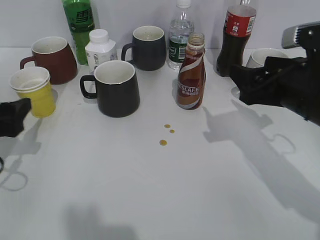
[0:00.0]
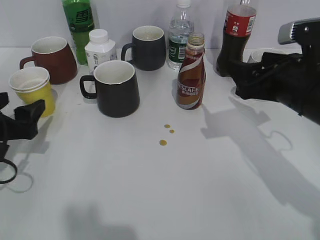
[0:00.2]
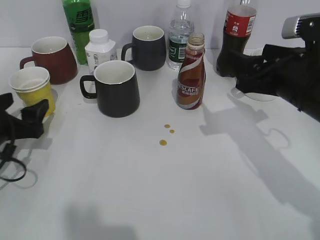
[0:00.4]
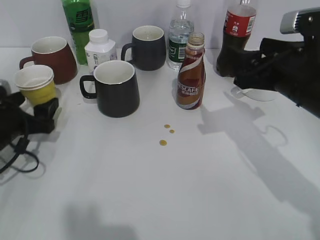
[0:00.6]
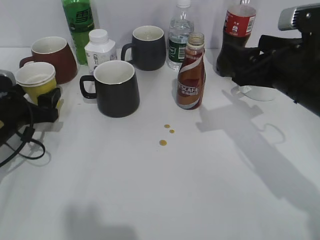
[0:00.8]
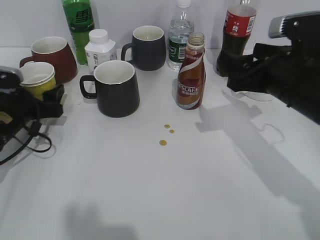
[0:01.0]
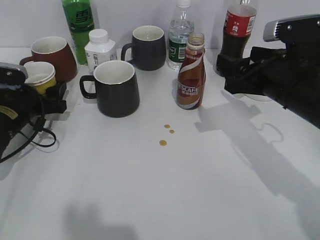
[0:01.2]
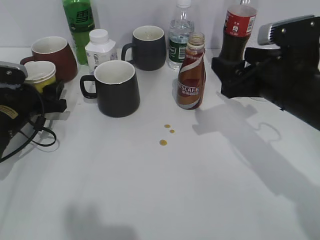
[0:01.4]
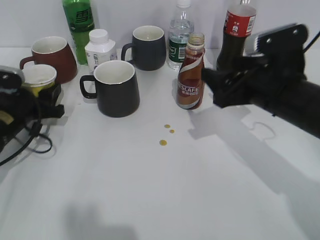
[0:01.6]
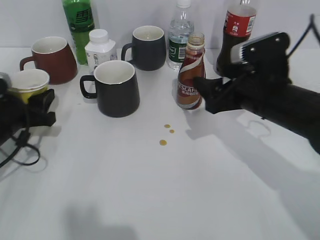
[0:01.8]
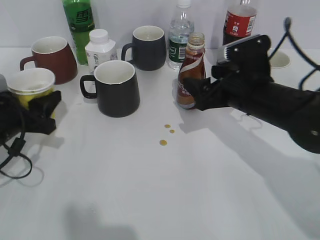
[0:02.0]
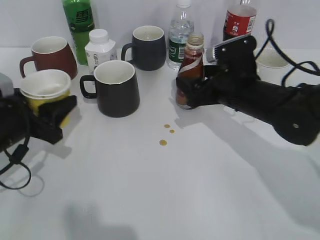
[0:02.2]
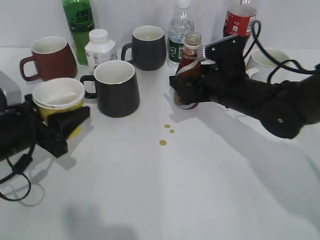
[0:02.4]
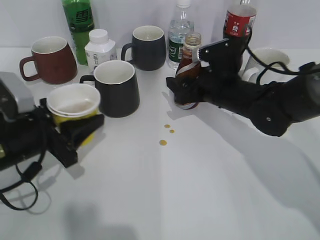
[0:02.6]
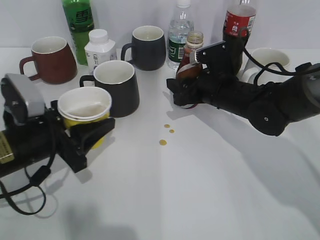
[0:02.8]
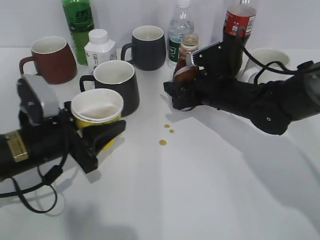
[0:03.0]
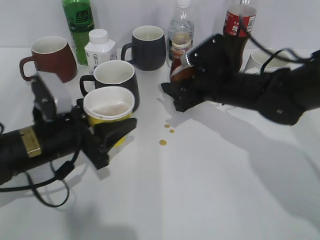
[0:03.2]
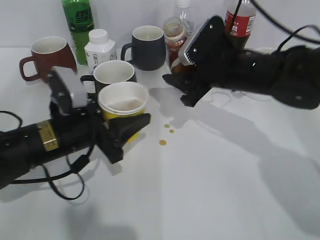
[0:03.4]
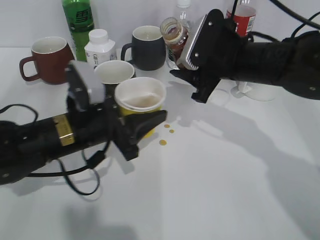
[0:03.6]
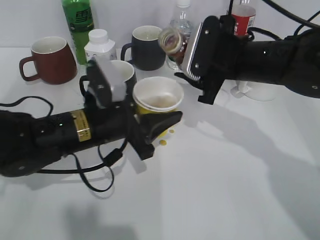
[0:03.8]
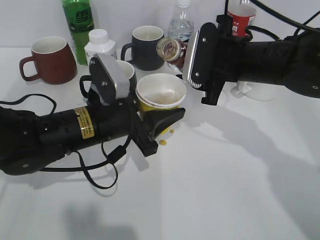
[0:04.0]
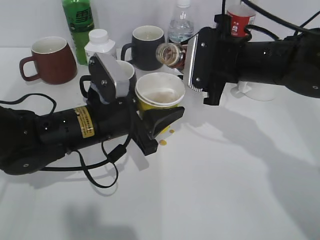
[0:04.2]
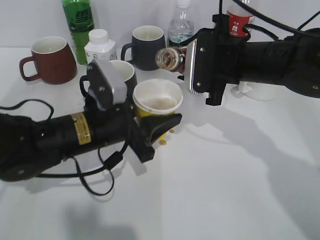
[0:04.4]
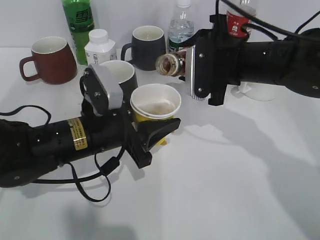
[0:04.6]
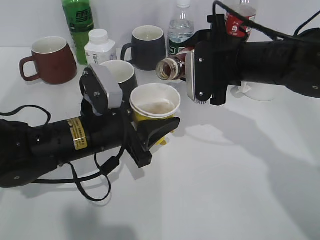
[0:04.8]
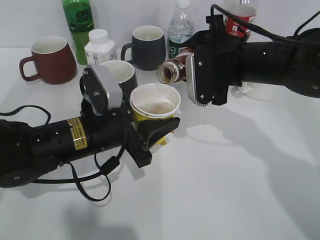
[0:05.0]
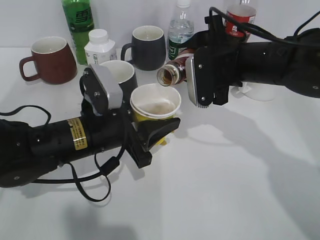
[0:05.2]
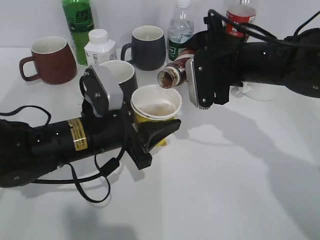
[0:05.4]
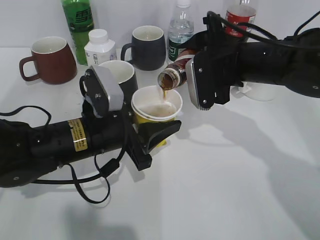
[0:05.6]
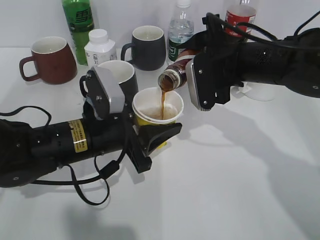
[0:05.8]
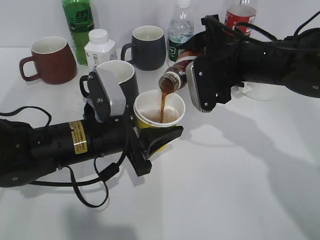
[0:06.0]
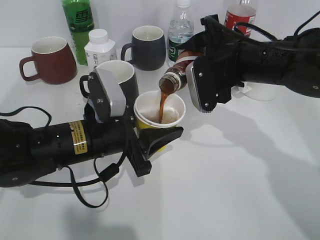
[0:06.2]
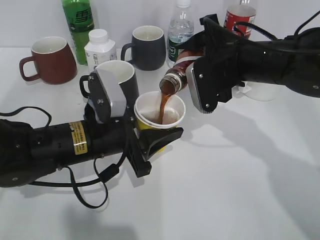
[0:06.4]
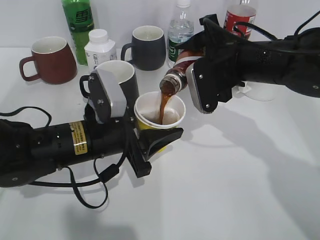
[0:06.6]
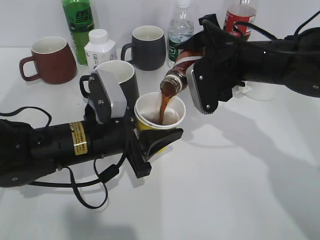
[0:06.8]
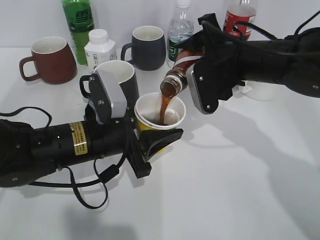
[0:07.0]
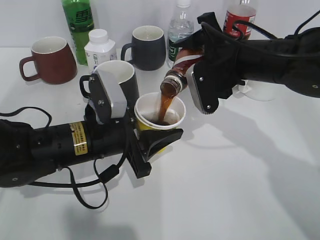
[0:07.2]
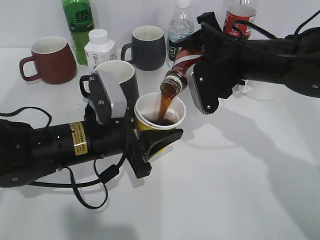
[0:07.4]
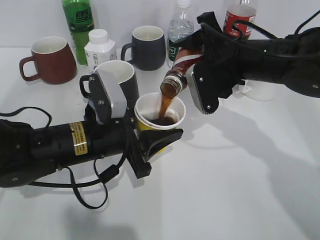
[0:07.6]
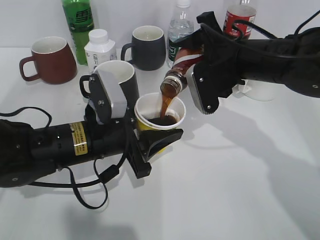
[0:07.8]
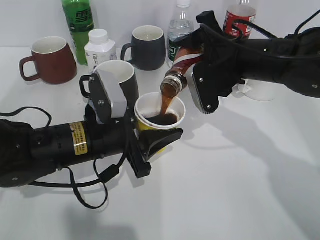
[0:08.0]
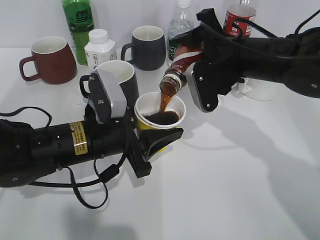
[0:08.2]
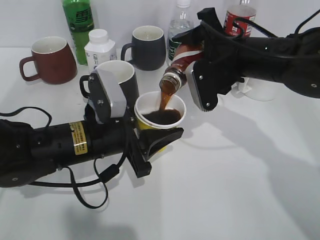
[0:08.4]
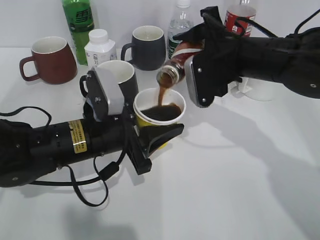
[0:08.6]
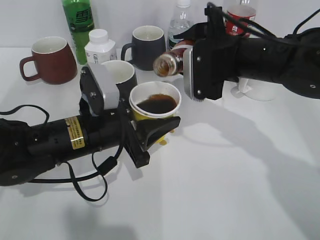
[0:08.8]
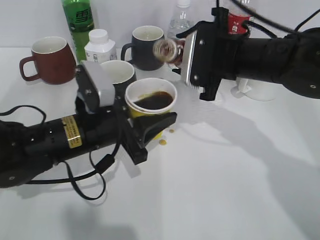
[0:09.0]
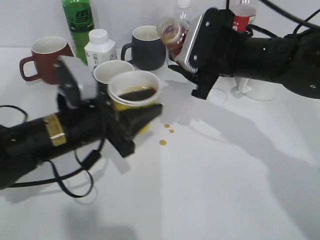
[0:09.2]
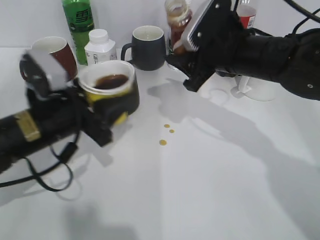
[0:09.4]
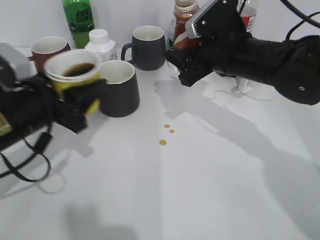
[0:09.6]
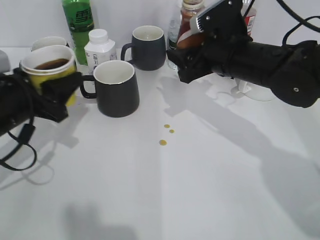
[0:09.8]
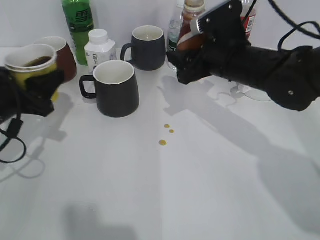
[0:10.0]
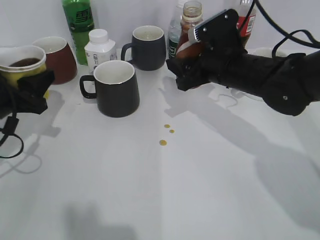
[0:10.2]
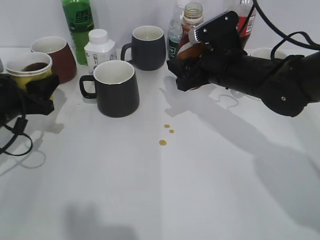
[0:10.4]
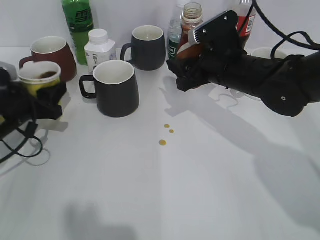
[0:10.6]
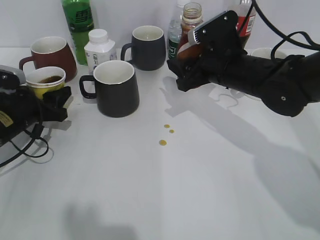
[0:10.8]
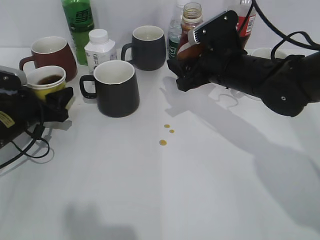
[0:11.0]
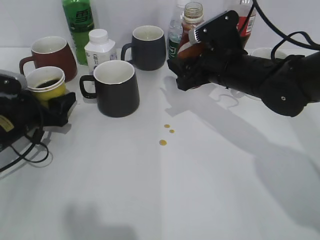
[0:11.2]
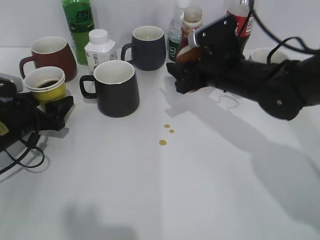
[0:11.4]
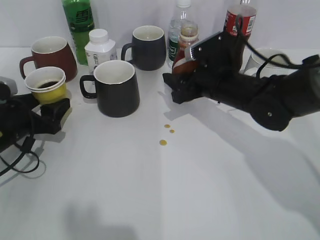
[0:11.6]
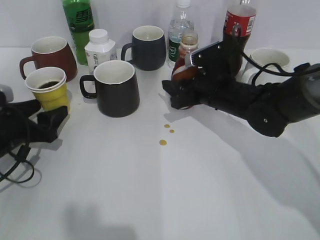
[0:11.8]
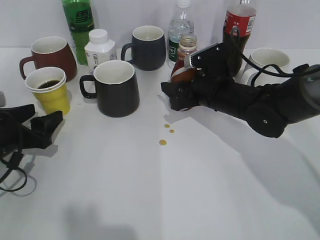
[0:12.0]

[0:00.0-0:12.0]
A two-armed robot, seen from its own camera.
Step, 0:01.6 to 0:03.0: Grasp the bottle with coffee with right gripper.
Step, 0:03.2 to 0:08.8: Pour the coffee from bottle to cup with right gripper.
Step, 0:09.0 to 0:11.4: Place the yellow paper cup on the table with left gripper.
0:00.0 to 0:01.6: The left gripper moves forward and downward, some 15 cm, and closes up.
0:01.6 to 0:03.0: The left gripper travels backward and to the right by about 10 cm; the right gripper moves forward, downward and to the left, about 15 cm, and closes up.
0:03.0 to 0:04.4: The right gripper heads upward, covering about 10 cm, while the left gripper moves to the right, about 10 cm.
0:06.0 to 0:07.6: There are only small adjustments of the grippers.
0:09.0 to 0:10.4: The left gripper is displaced to the left by some 15 cm.
0:10.4 to 0:12.0: The right gripper moves downward, about 5 cm; the left gripper shifts by some 5 cm, and opens its fingers.

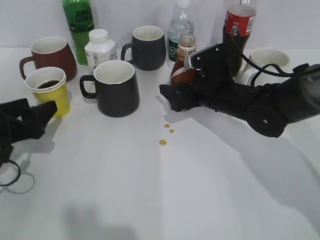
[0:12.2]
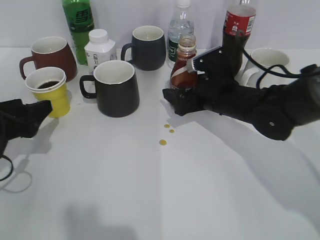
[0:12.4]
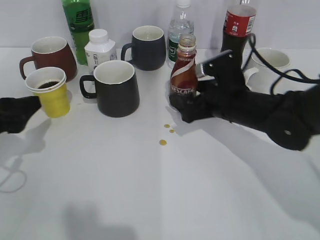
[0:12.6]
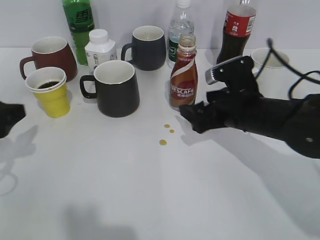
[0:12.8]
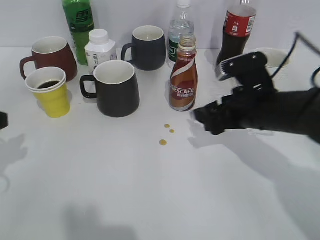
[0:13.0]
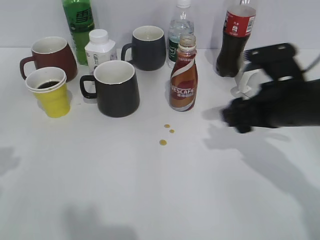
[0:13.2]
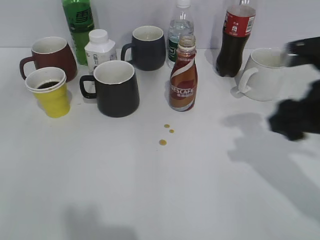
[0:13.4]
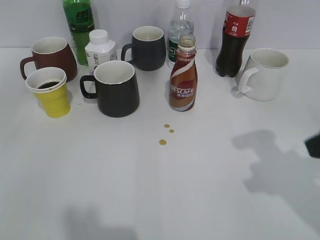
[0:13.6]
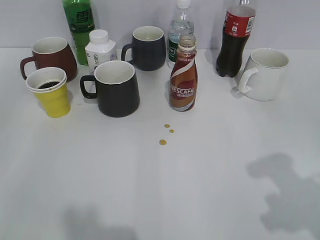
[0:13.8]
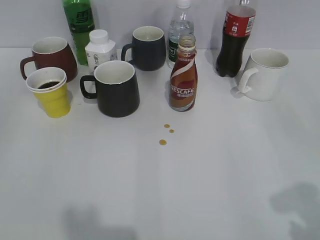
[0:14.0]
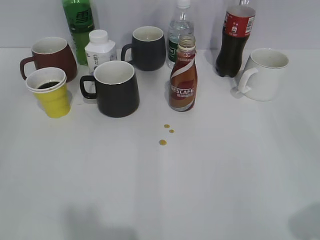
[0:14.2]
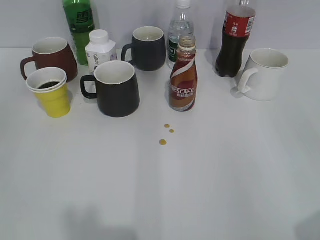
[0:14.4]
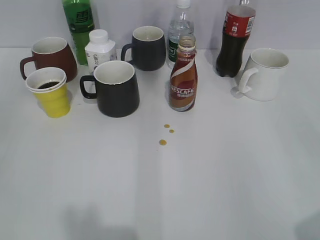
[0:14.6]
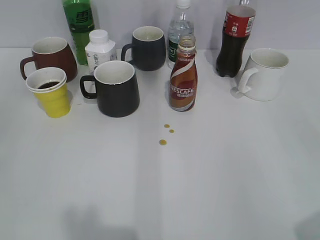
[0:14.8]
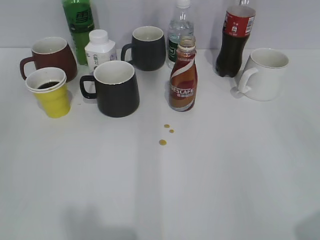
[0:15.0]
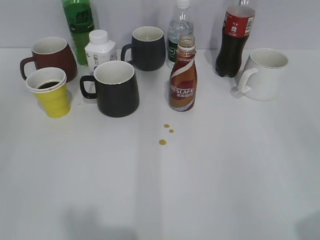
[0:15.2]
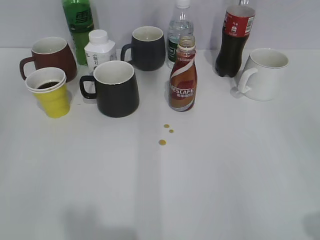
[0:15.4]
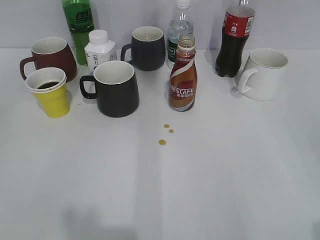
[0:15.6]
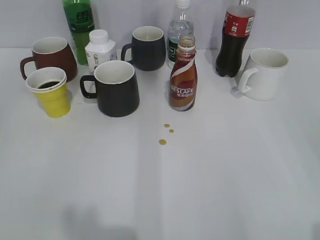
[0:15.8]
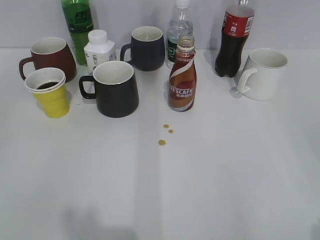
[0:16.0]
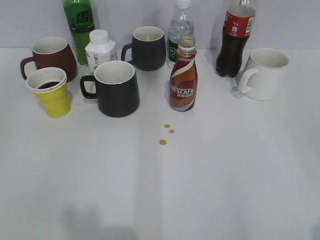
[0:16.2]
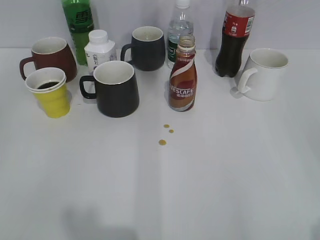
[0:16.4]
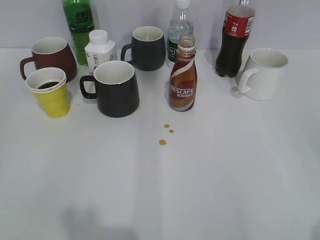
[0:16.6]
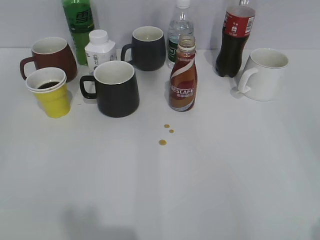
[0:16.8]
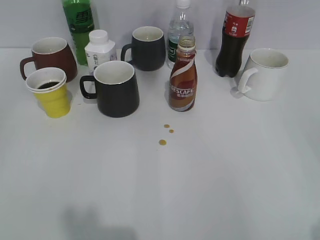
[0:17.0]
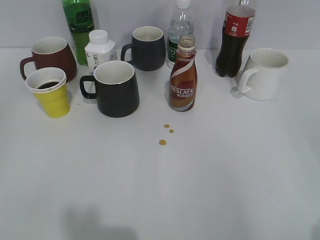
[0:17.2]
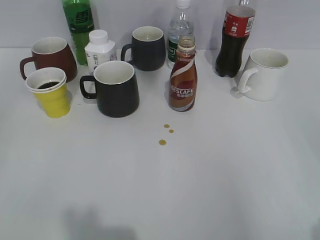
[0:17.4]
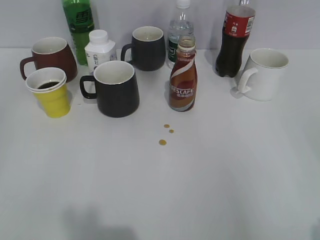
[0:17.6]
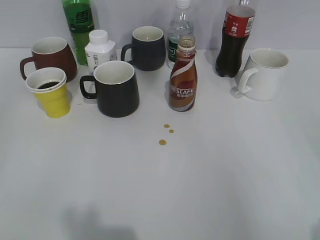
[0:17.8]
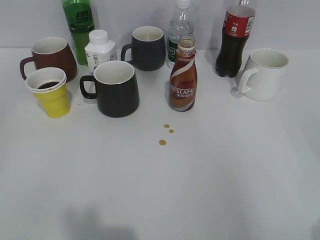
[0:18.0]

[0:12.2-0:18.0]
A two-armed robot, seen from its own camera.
0:12.2 to 0:13.6: The left gripper travels upward and backward by about 25 cm; the right gripper heads backward, upward and to the right, covering about 25 cm, and closes.
0:13.6 to 0:15.0: The right gripper heads backward and to the right, covering some 20 cm.
0:16.6 to 0:18.0: Both grippers stay put.
